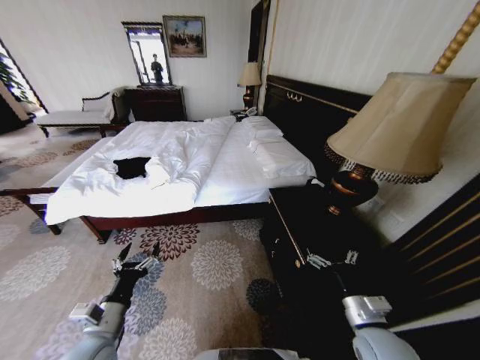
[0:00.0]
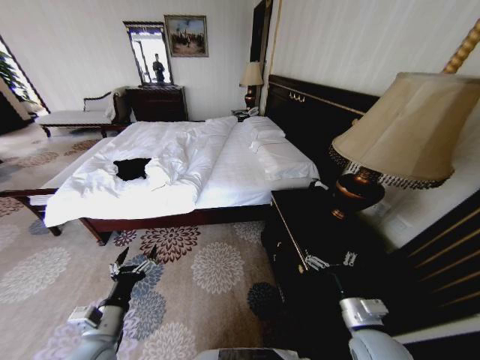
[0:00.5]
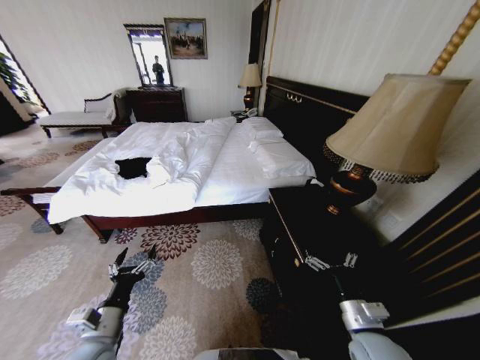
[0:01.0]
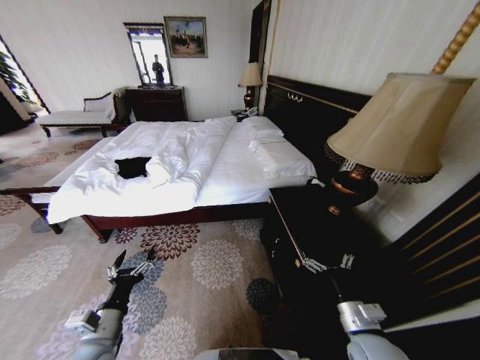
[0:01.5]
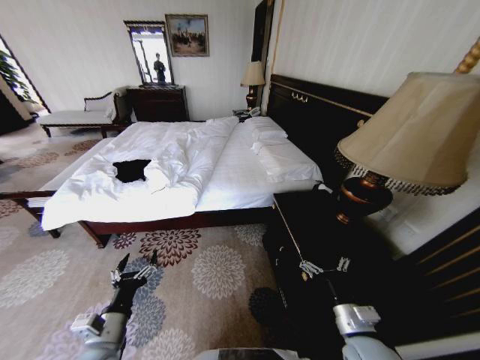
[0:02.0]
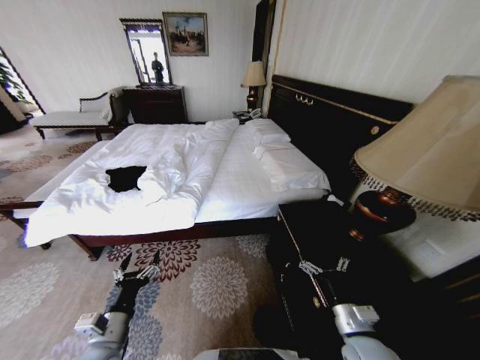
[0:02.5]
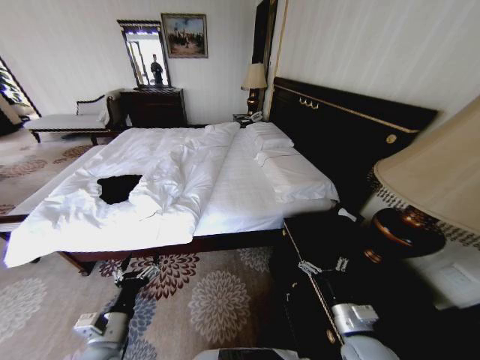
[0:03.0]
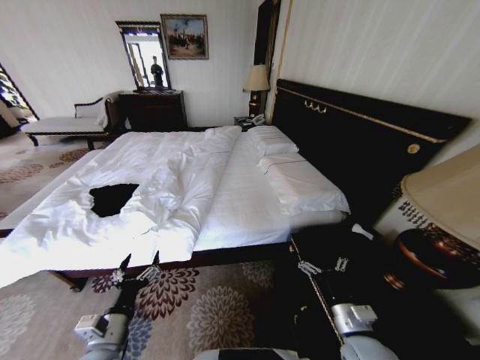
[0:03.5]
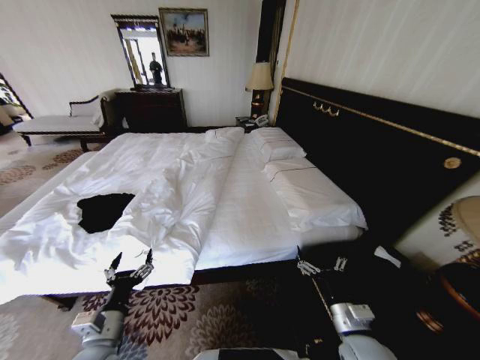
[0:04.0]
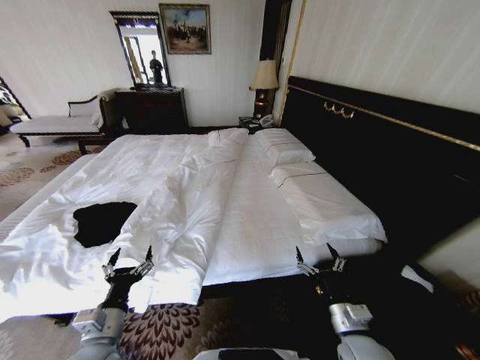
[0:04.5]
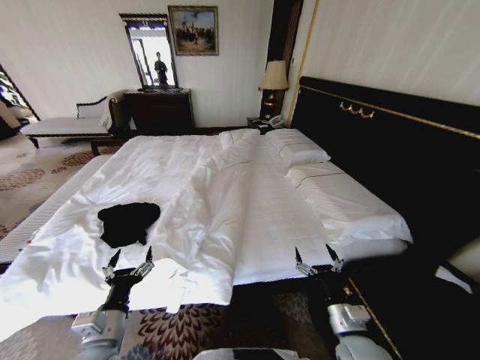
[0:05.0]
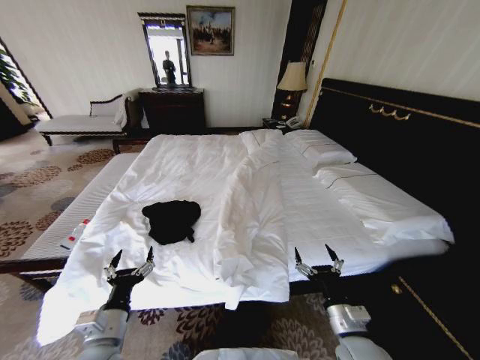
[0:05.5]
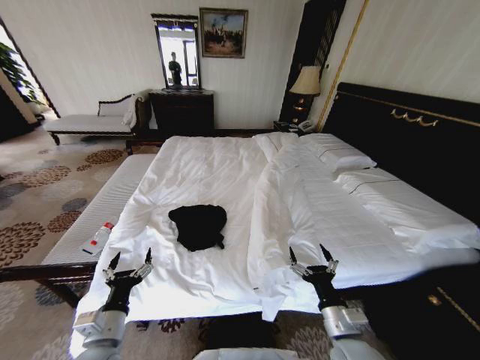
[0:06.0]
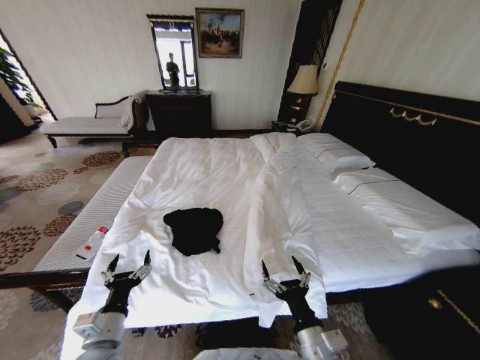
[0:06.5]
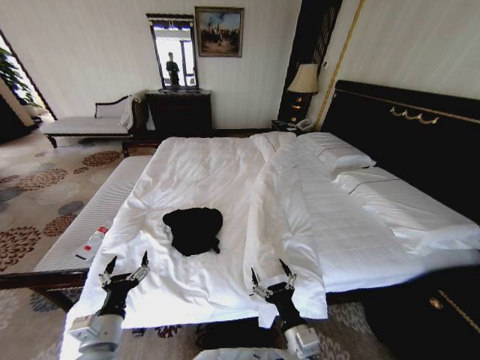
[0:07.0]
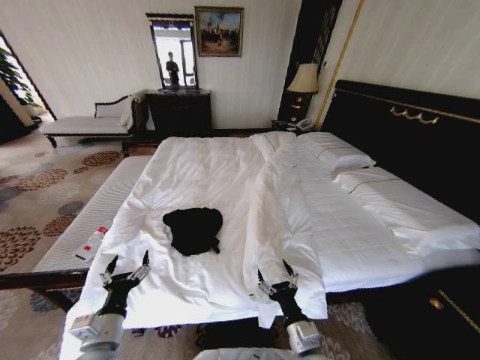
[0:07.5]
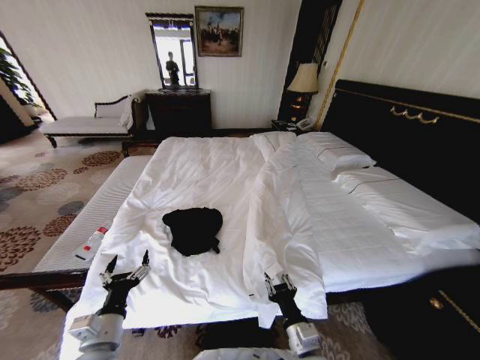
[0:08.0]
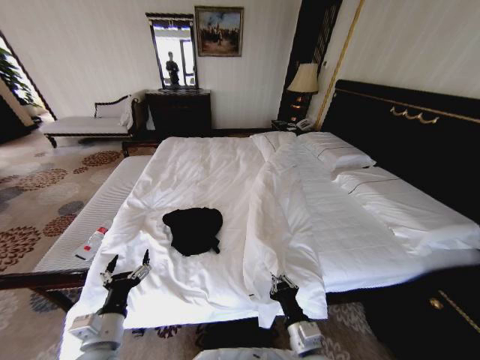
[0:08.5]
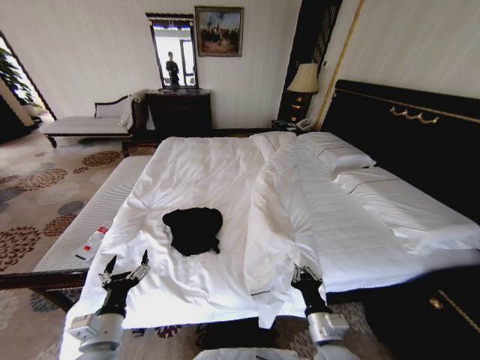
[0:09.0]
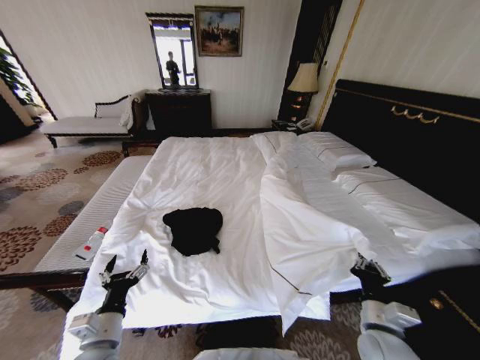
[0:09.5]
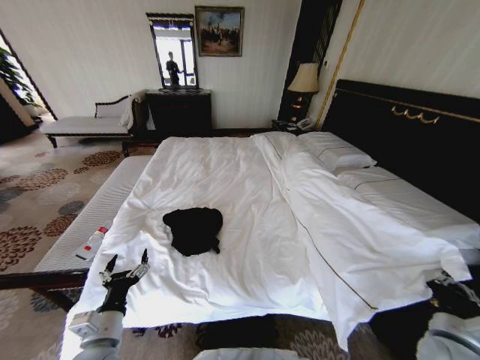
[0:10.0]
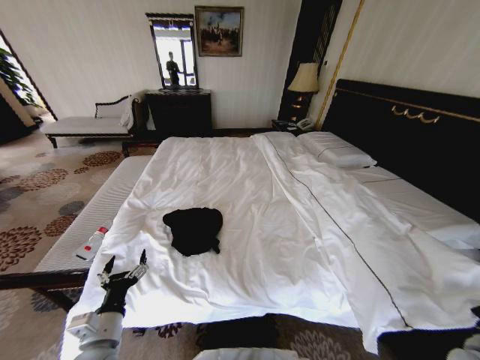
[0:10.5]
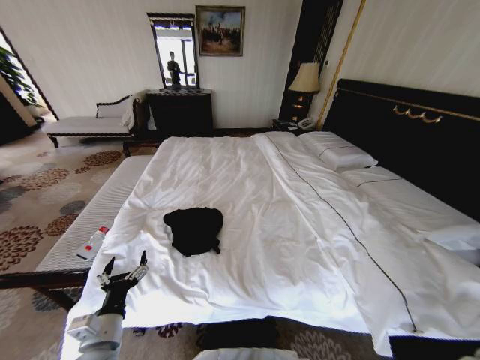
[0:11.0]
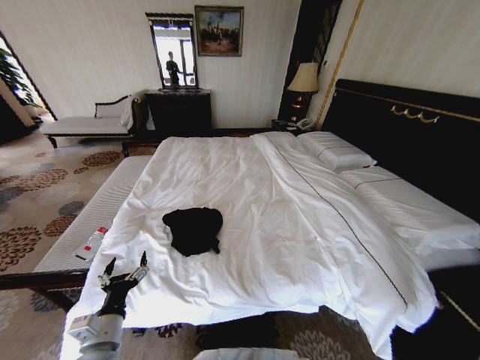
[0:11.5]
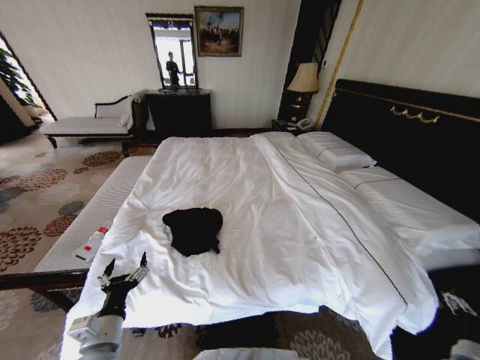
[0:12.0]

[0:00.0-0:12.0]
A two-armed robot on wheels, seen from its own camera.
Task of the whole recording: Fold the clothes on the bed.
0:06.0 to 0:08.0: The right gripper moves to the left, roughly 5 cm, and closes.
0:08.0 to 0:10.0: The right gripper goes some 30 cm to the right, and closes its fingers.
0:10.0 to 0:12.0: The right gripper heads to the right and downward, covering about 10 cm, and opens.

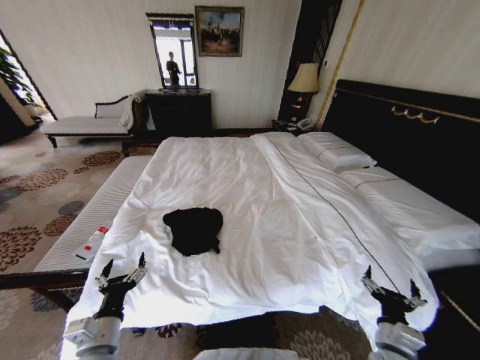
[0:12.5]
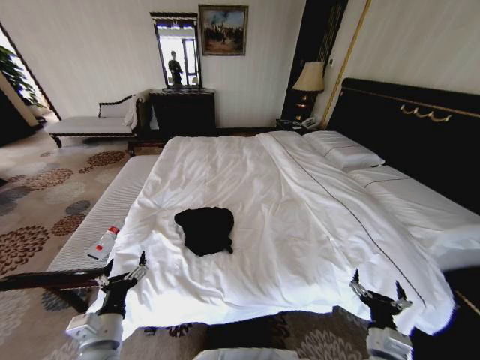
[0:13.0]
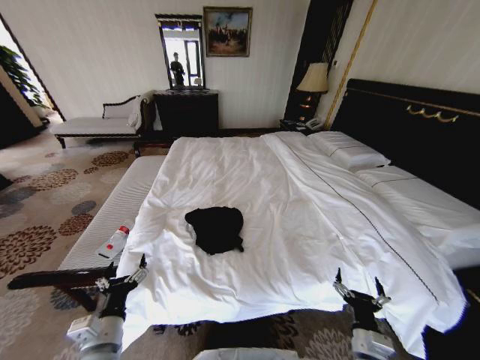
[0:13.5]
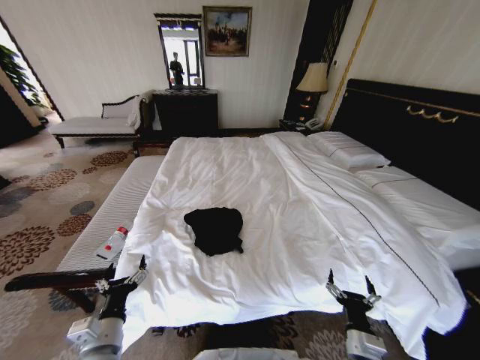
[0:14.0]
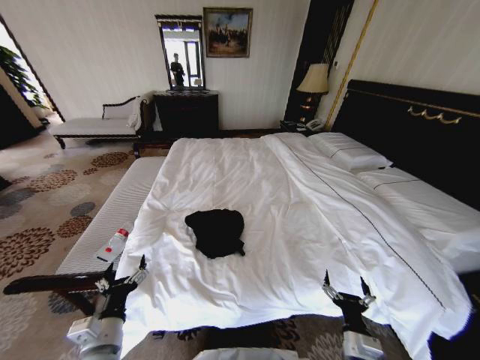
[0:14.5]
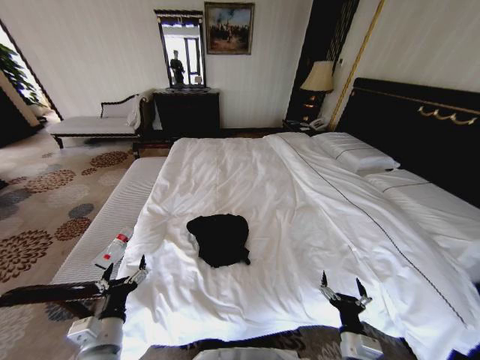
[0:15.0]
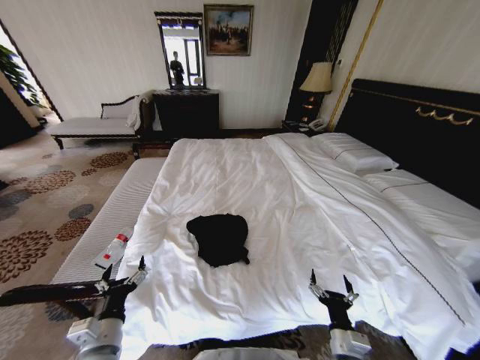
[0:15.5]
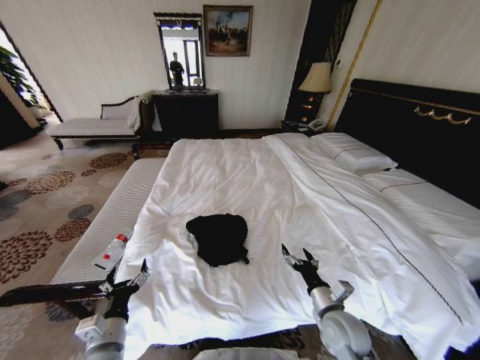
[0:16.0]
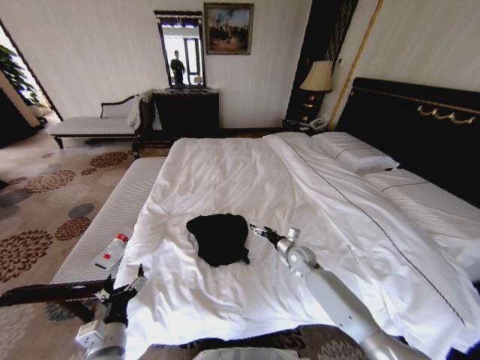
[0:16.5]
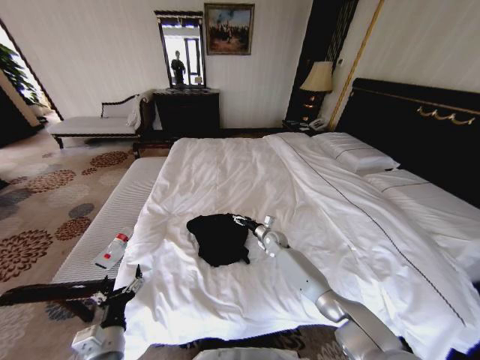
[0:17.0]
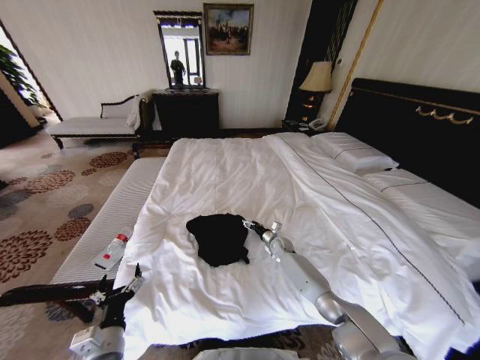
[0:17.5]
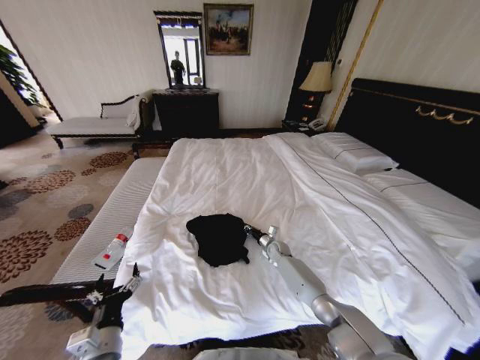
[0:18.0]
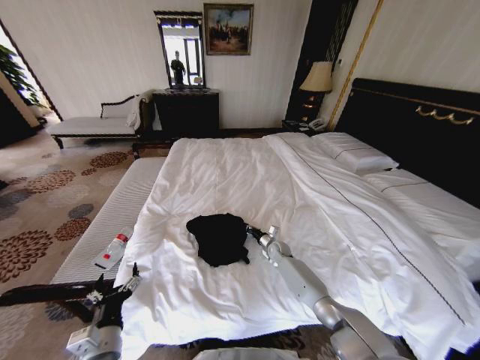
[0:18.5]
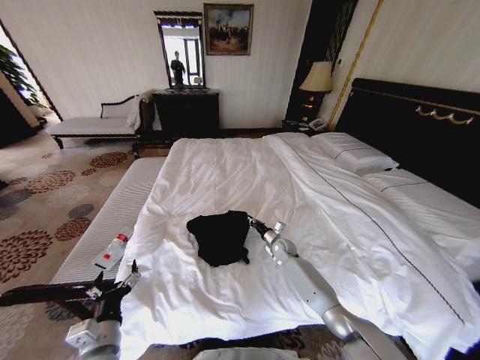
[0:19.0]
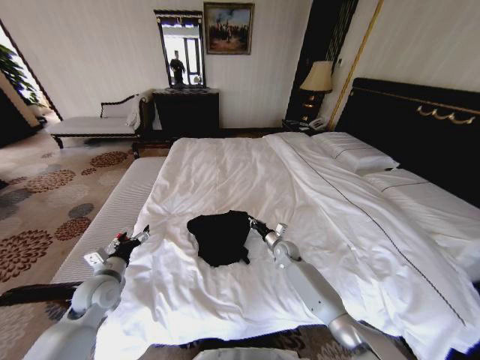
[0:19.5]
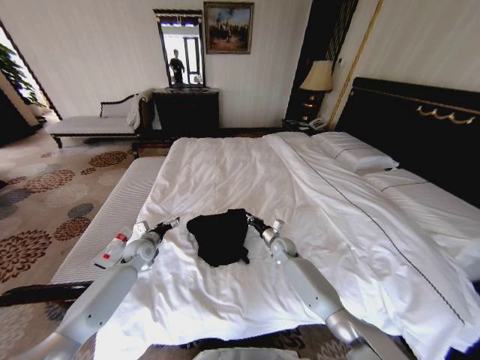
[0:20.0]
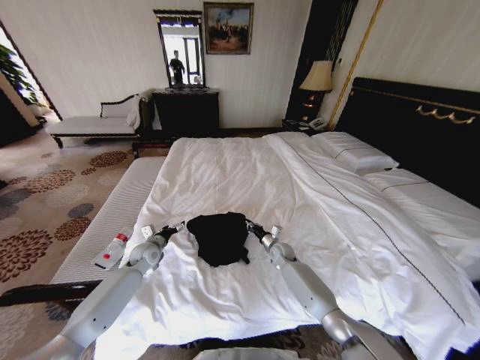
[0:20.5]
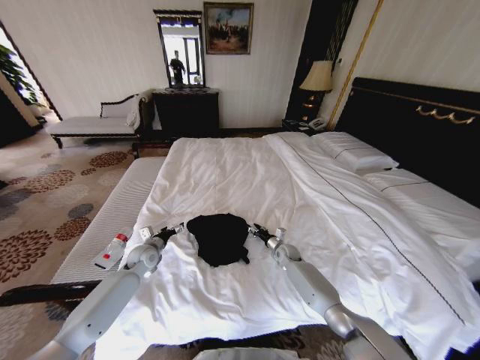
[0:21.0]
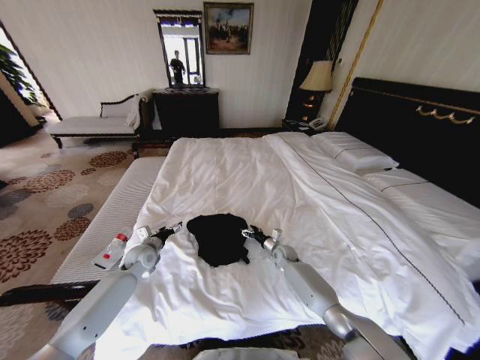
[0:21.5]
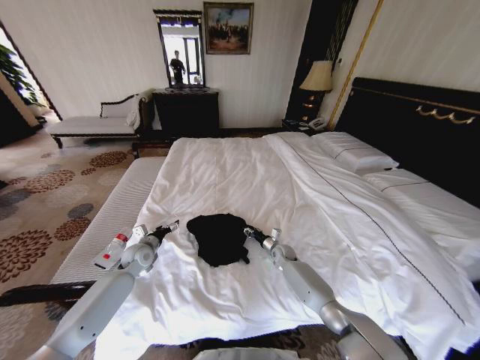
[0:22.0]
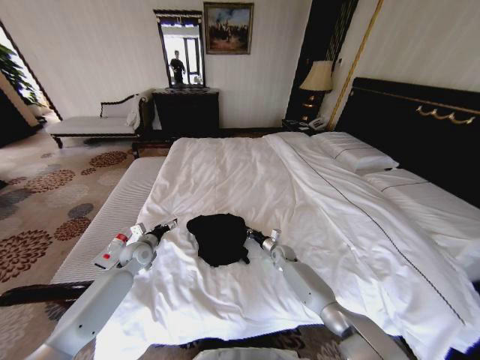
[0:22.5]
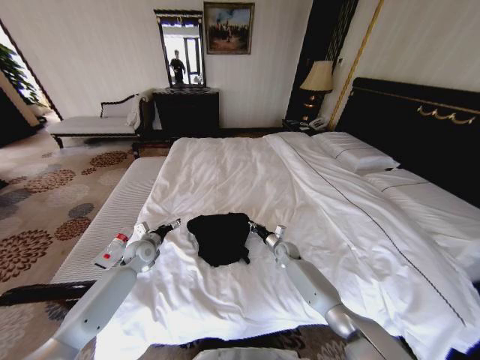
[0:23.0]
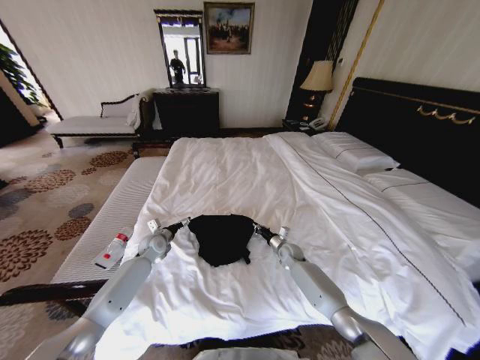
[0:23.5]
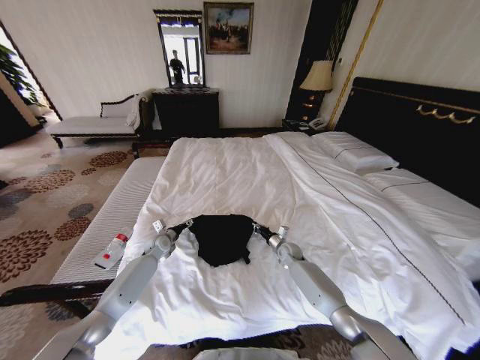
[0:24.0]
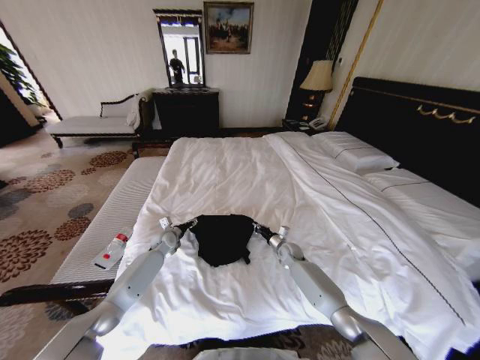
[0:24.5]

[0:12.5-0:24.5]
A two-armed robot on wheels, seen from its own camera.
Task of the whole recording: Fold the clothes on the bed.
0:12.5 to 0:14.5: The right gripper heads to the left, covering some 5 cm.
0:14.5 to 0:16.5: The right gripper travels forward by some 30 cm.
0:16.5 to 0:18.5: The right gripper shifts approximately 15 cm forward, downward and to the left, and closes.
0:18.5 to 0:20.5: The left gripper heads forward, covering approximately 30 cm.
0:20.5 to 0:22.5: The right gripper opens and closes again.
0:22.5 to 0:24.5: The left gripper heads forward and to the right, covering approximately 10 cm.

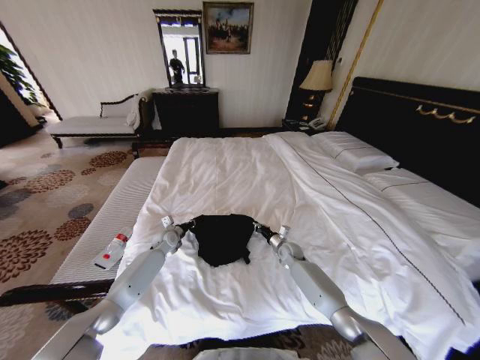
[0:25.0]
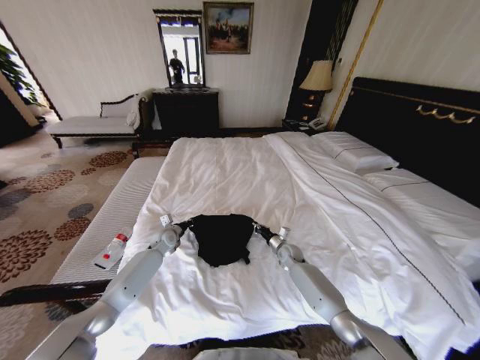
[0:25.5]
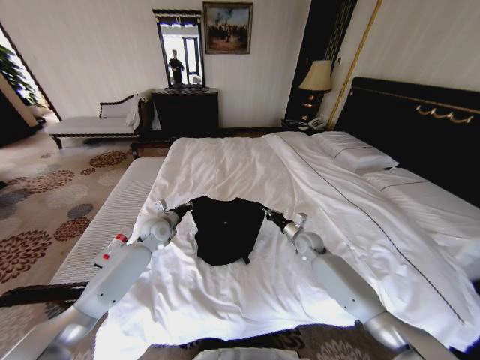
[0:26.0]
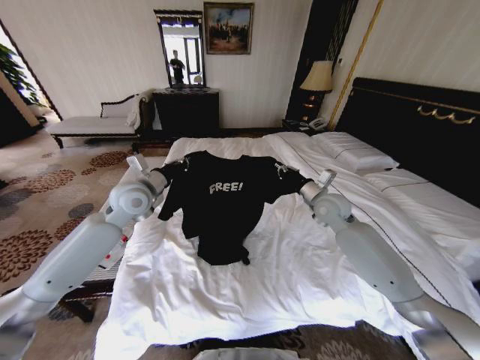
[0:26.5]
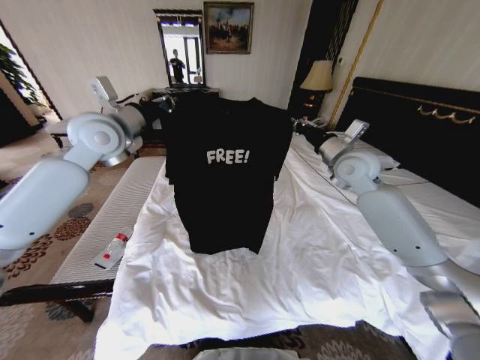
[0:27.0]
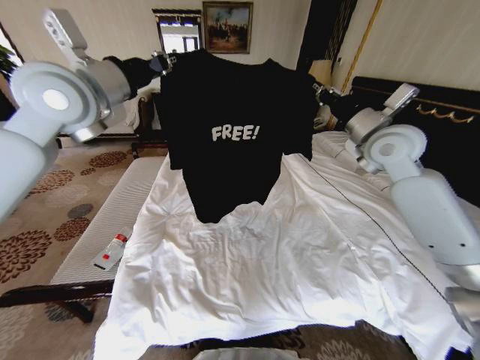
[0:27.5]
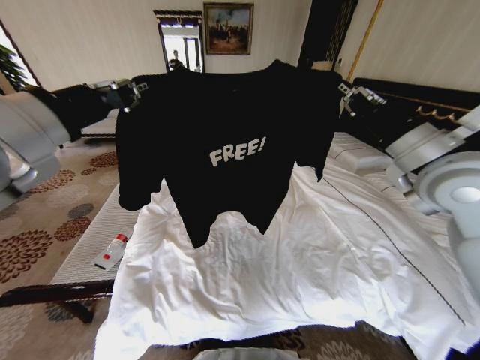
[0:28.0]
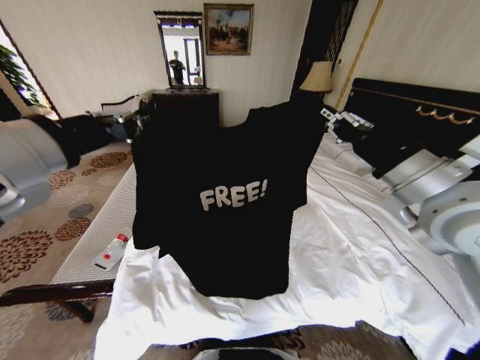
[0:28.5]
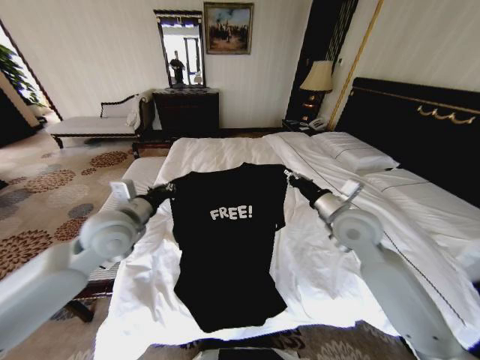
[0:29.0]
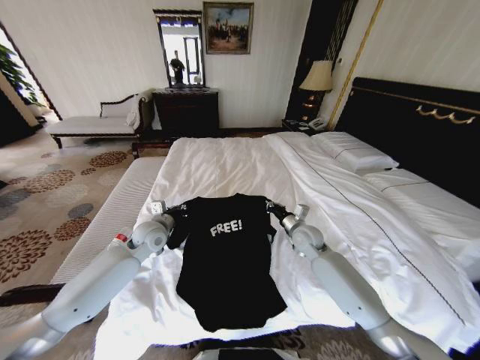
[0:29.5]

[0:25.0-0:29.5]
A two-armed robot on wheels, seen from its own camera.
Task of the whole recording: Fold the clothes on the bed.
0:25.0 to 0:27.0: The two grippers go some 40 cm upward.
0:27.0 to 0:29.5: The grippers both shift downward by approximately 30 cm.
